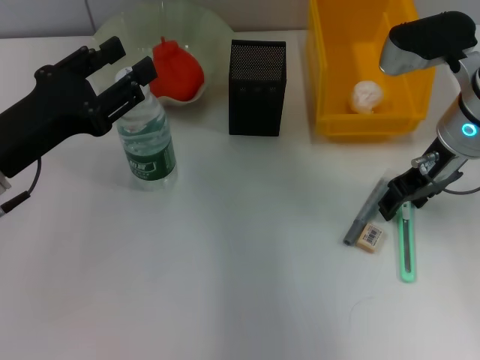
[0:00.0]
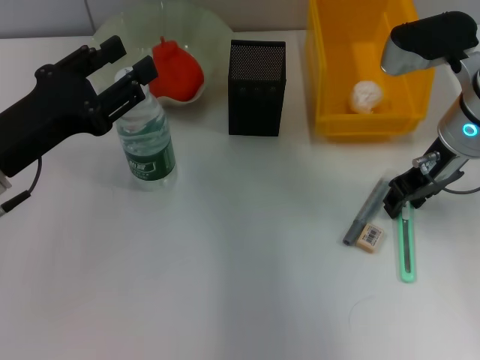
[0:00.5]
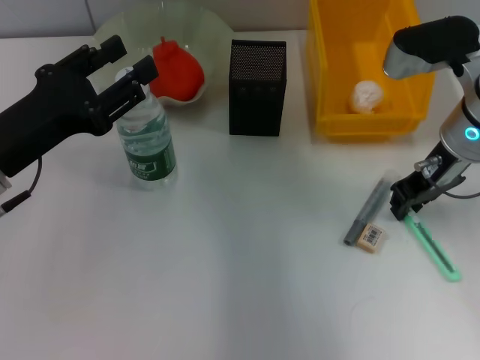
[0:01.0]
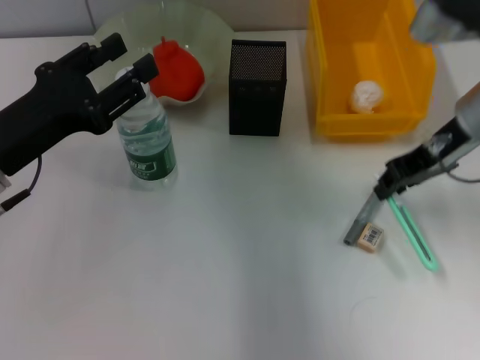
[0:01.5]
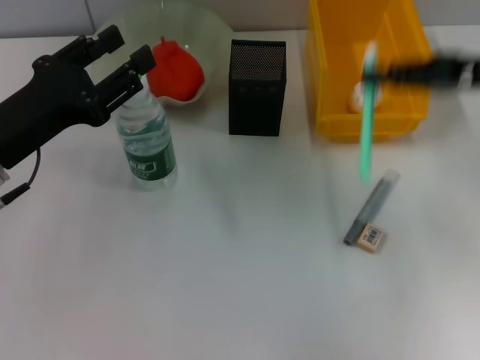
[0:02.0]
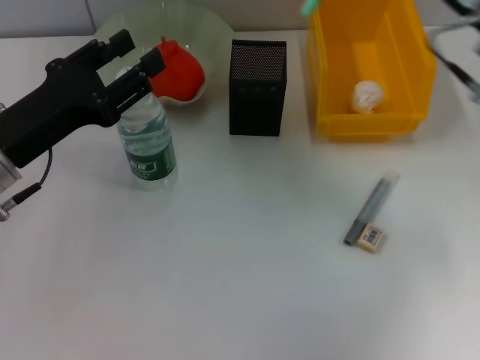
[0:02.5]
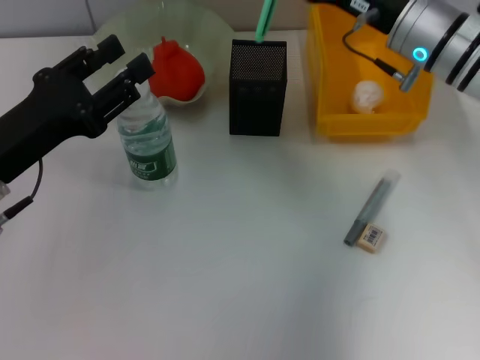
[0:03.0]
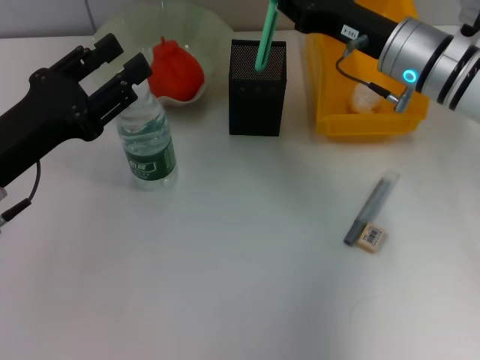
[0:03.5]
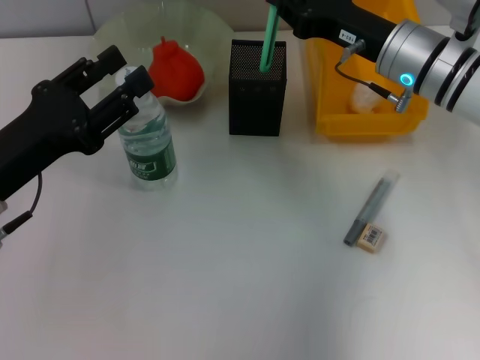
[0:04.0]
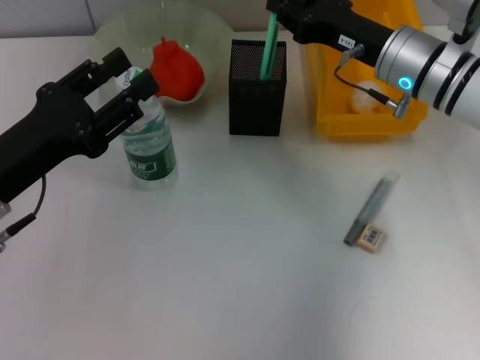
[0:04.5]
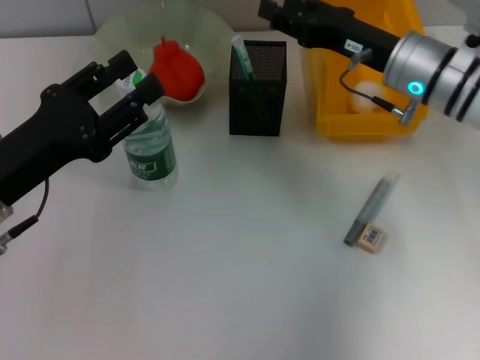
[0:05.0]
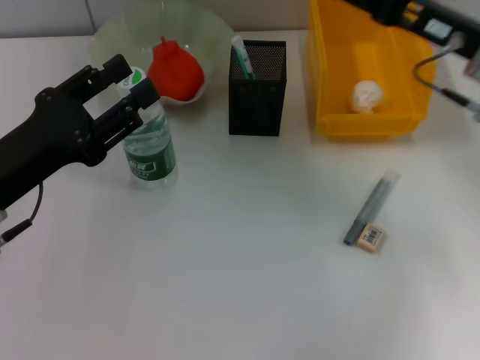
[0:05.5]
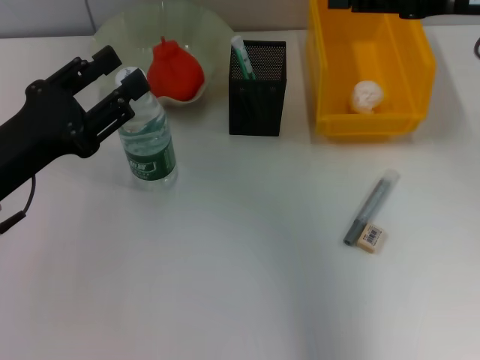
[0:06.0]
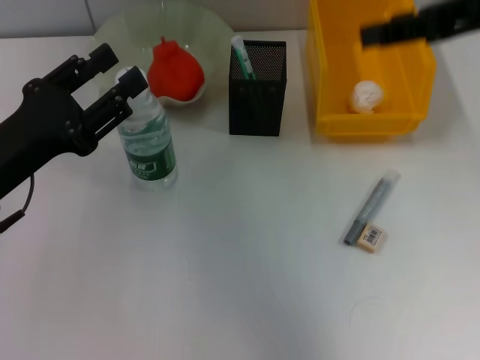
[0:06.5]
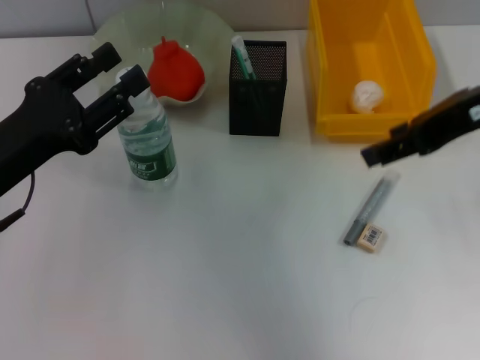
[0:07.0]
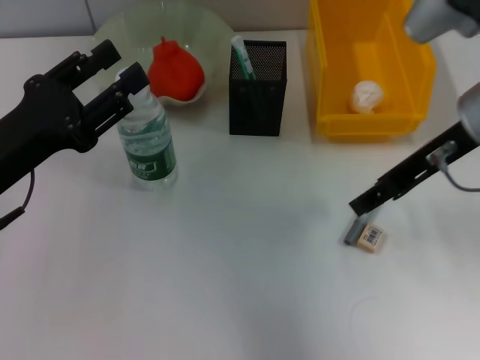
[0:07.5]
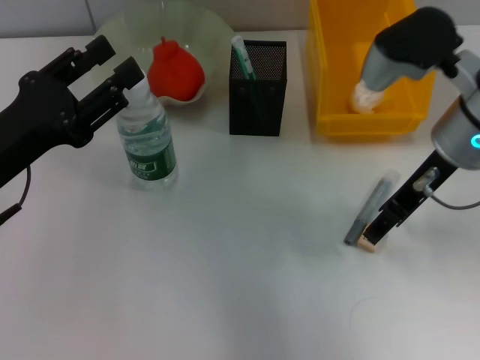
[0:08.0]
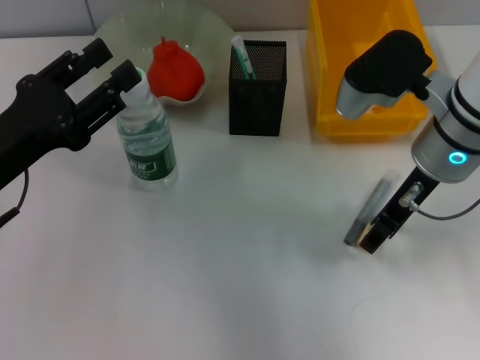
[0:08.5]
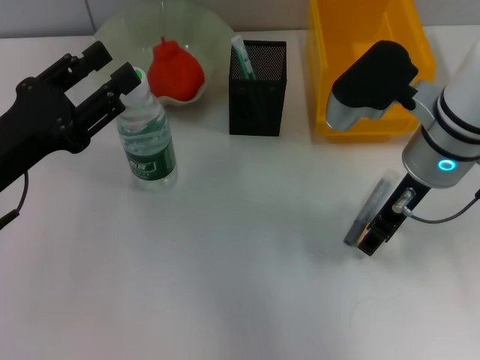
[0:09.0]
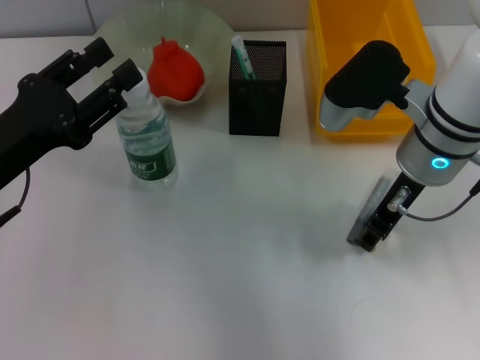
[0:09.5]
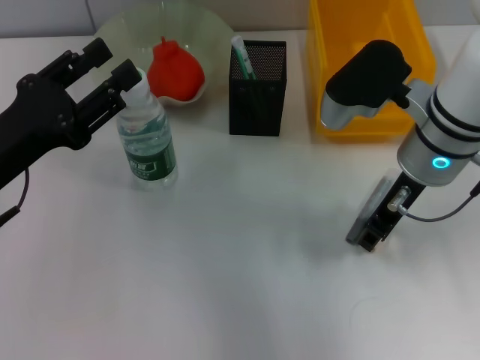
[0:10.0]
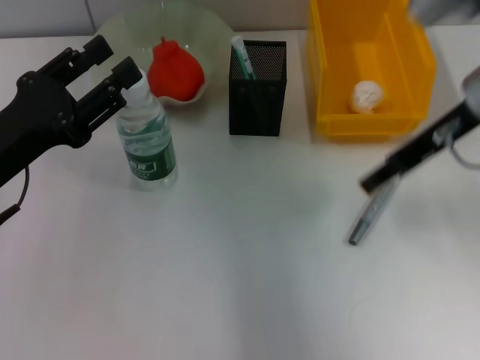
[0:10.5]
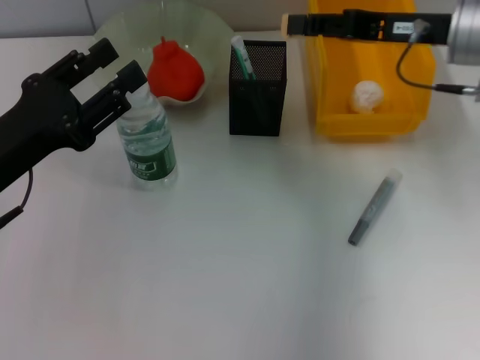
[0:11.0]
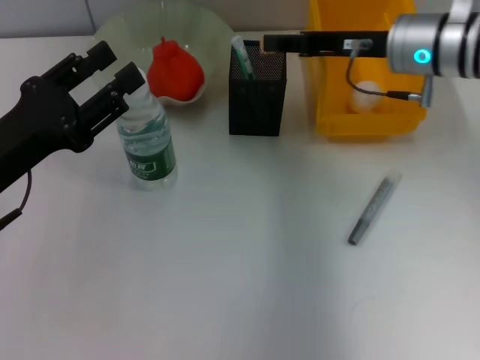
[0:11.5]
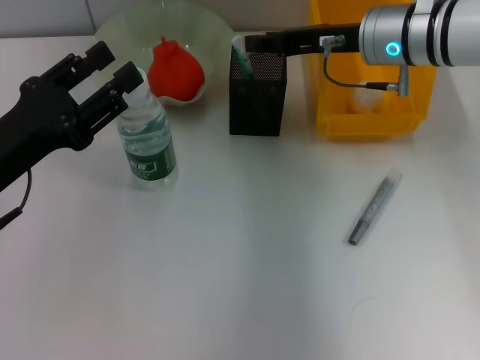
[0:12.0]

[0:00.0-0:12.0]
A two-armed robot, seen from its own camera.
Step, 0:01.5 to 0:04.5: Place the blue utility knife into the pen holder with the right hand.
Step, 0:05.0 to 0:09.5: Grab the eraser with the right hand.
0:00.0 to 0:02.0: The right gripper goes some 10 cm to the right, and closes its fingers.
0:02.0 to 0:04.0: The right gripper is displaced to the left, downward and forward by about 15 cm.
0:04.0 to 0:06.0: The right gripper is displaced upward, backward and to the right by approximately 15 cm, and opens.
0:06.0 to 0:08.0: The right gripper heads downward and to the left, covering approximately 10 cm.
0:08.0 to 0:10.0: There are only small adjustments of the grippers.
0:10.0 to 0:12.0: The right gripper is displaced forward by about 10 cm.

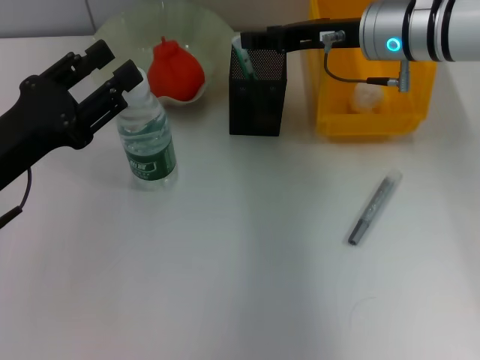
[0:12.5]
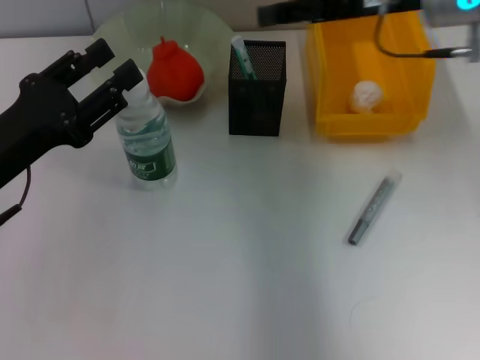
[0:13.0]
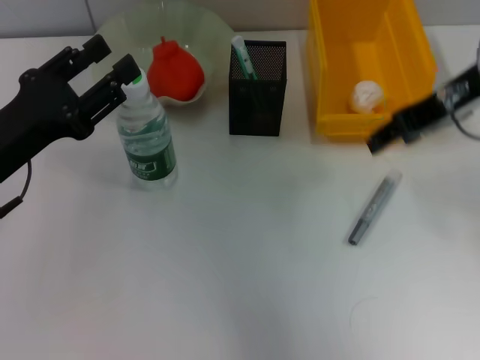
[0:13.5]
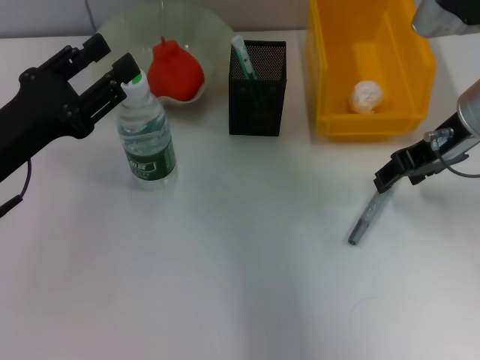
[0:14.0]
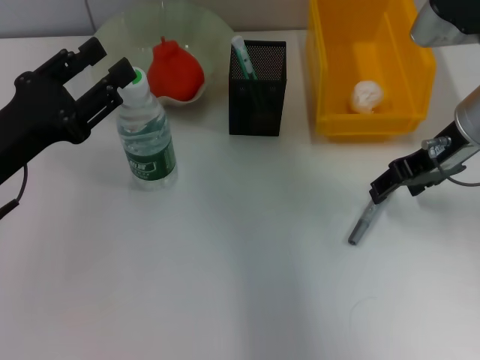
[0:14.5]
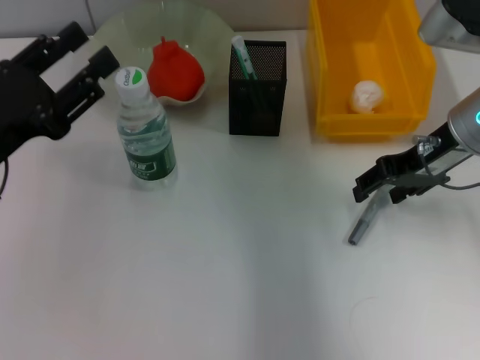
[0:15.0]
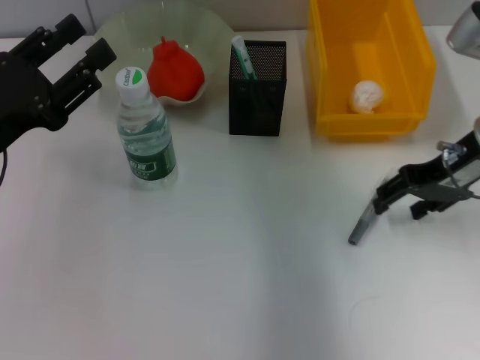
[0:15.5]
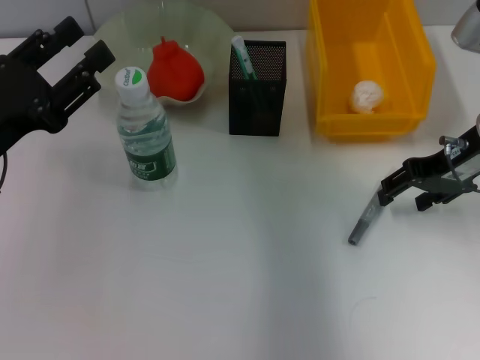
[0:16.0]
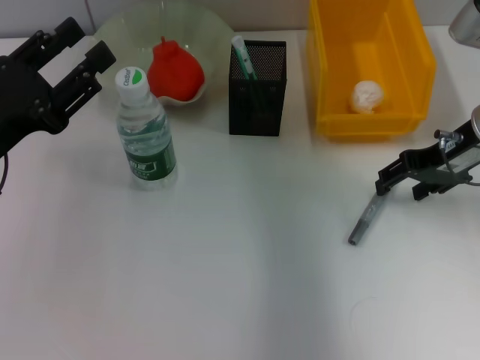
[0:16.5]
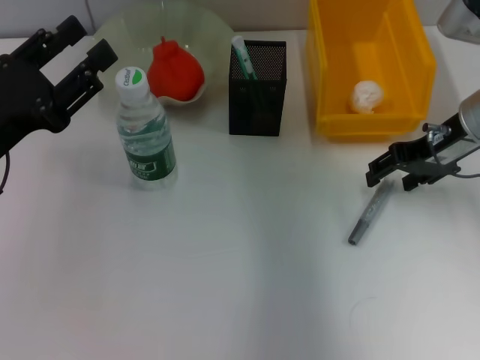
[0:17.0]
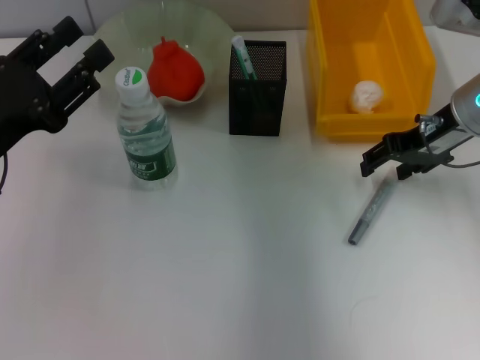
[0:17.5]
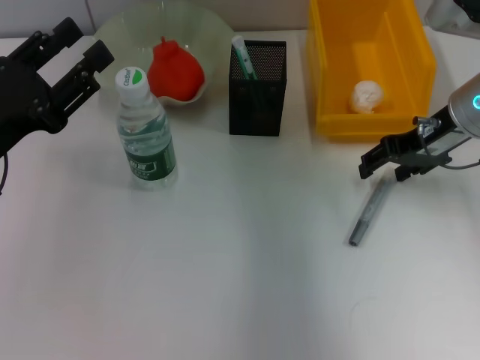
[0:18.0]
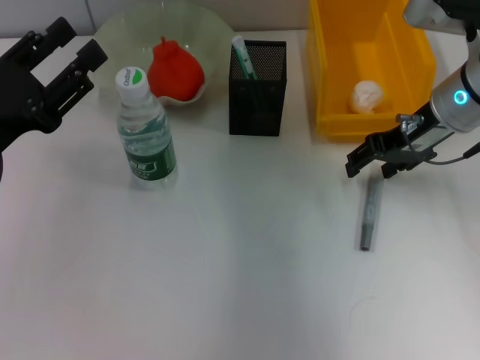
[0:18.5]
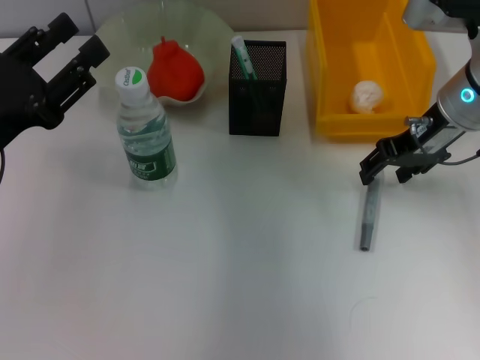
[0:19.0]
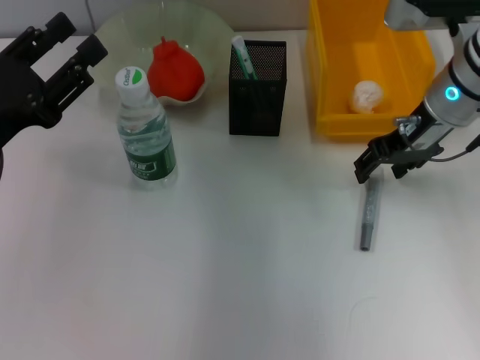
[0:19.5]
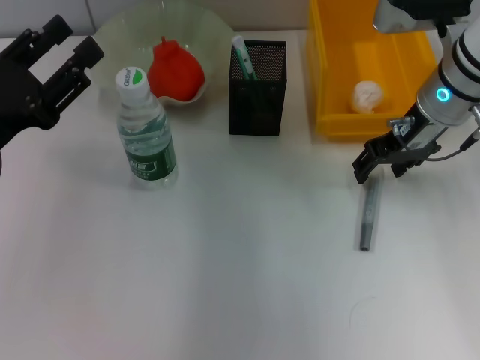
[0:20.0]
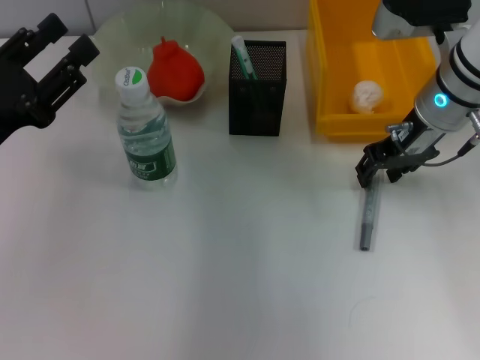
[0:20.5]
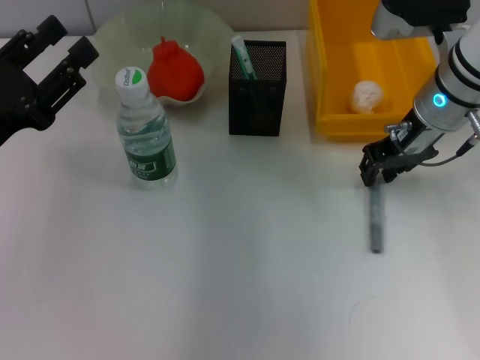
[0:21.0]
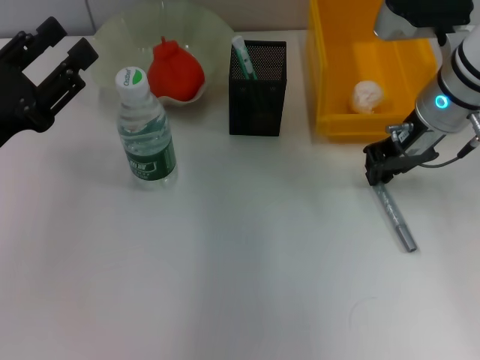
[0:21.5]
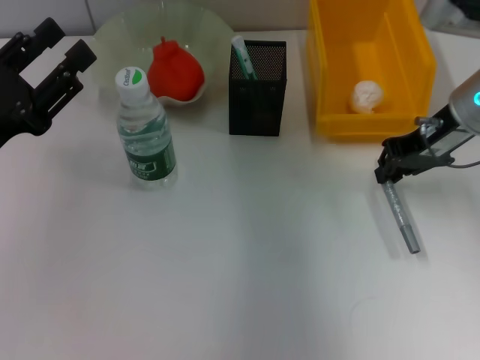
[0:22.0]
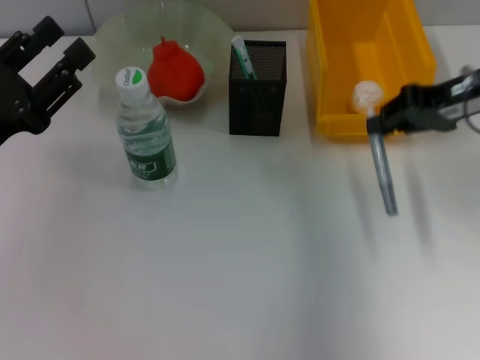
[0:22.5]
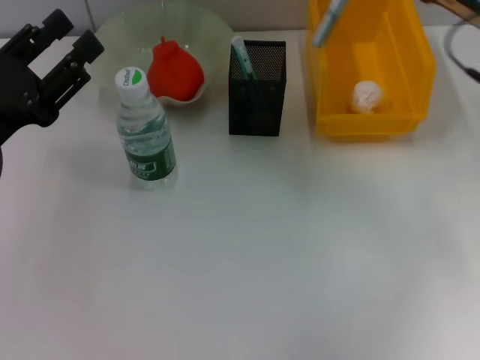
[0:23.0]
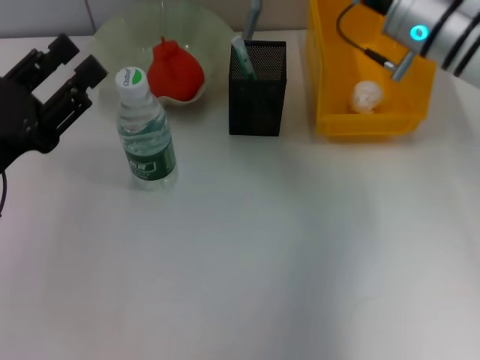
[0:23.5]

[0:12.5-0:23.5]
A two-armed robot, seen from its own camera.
Step, 0:13.0 to 0:21.0: Grab the gray glue with the right hand.
0:12.5 to 0:14.5: The right gripper moves backward and to the right, about 10 cm.
0:14.5 to 0:20.0: The grippers stay close to where they were, moving slightly.
0:20.0 to 0:21.5: The right gripper closes.
0:21.5 to 0:23.5: The right gripper travels to the right and back again, about 10 cm each way.

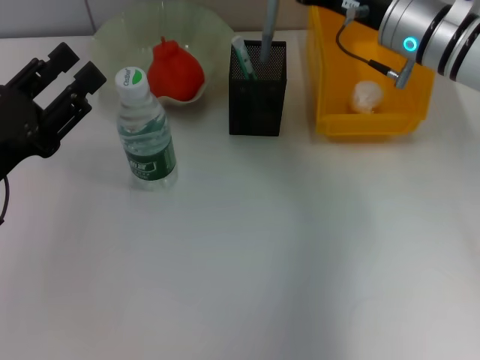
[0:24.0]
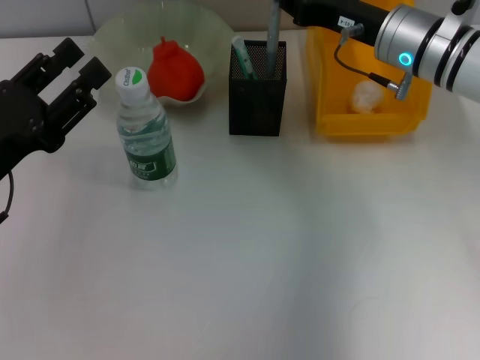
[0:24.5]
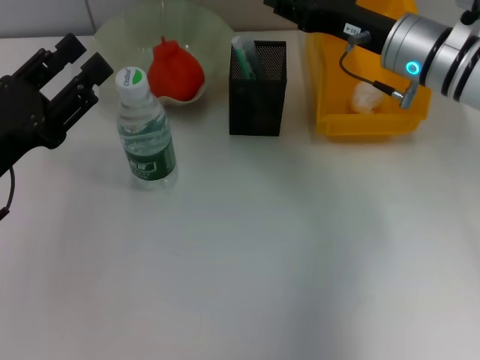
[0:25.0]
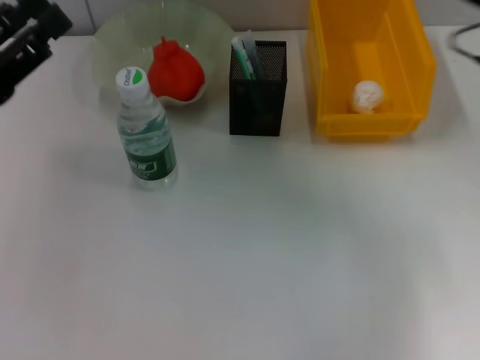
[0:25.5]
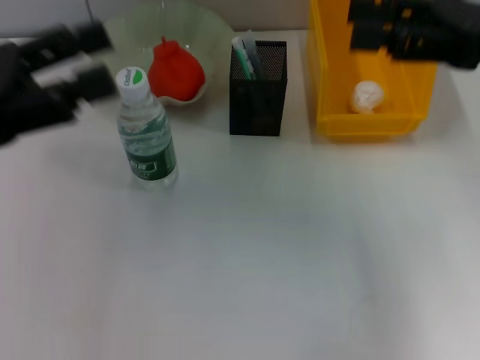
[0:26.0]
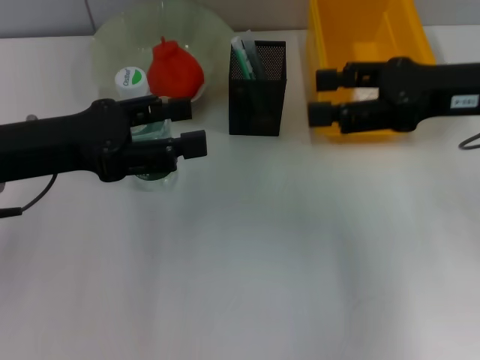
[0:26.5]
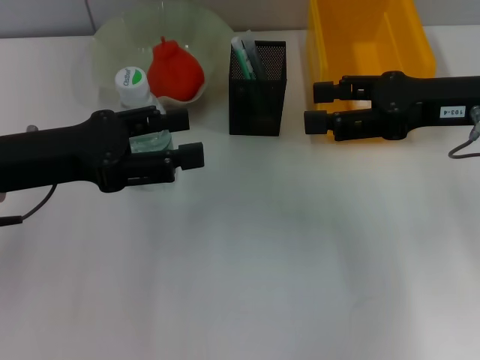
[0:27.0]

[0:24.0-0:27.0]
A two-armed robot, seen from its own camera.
0:24.0 to 0:25.5: The right gripper moves backward, to the right and upward, about 10 cm, and opens. The left gripper goes approximately 5 cm upward.
0:25.5 to 0:27.0: The left gripper shifts some 5 cm to the right.
